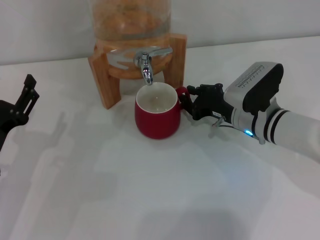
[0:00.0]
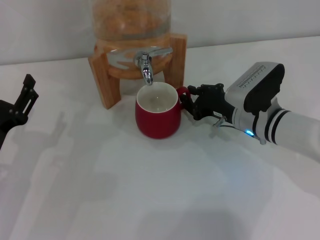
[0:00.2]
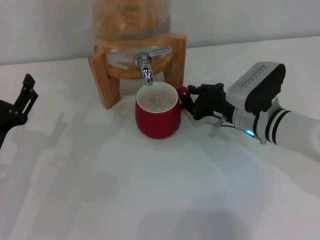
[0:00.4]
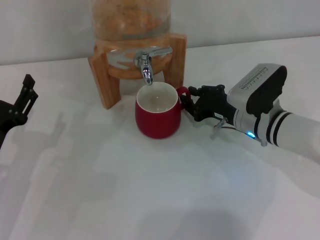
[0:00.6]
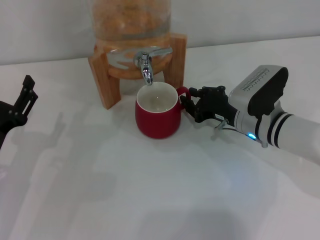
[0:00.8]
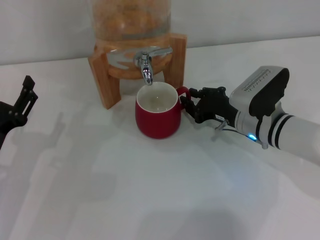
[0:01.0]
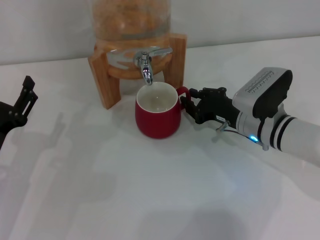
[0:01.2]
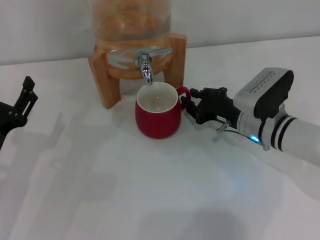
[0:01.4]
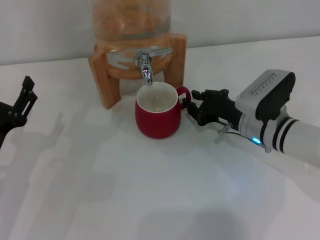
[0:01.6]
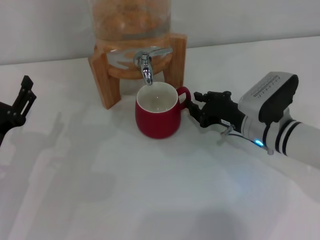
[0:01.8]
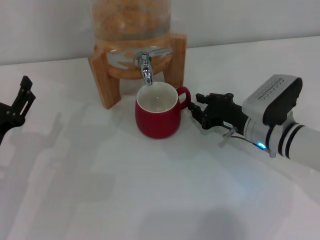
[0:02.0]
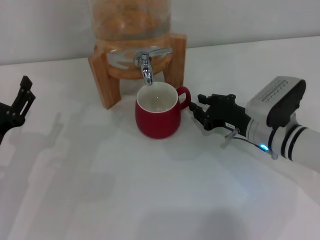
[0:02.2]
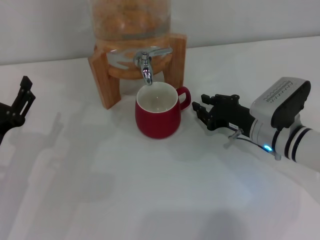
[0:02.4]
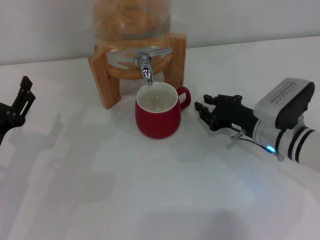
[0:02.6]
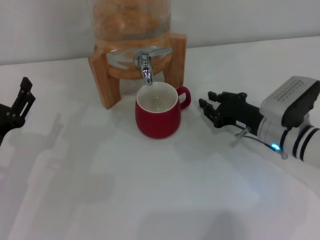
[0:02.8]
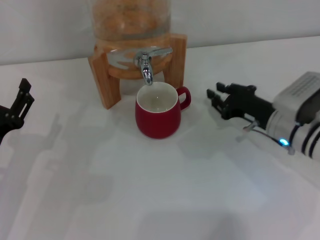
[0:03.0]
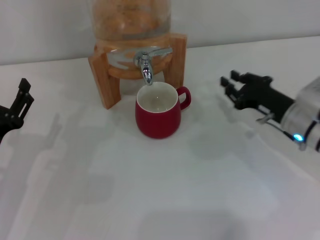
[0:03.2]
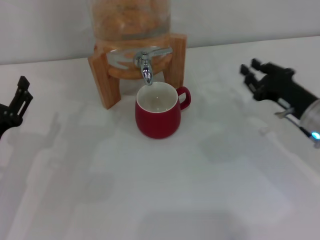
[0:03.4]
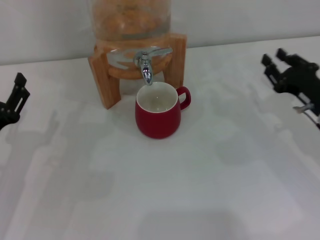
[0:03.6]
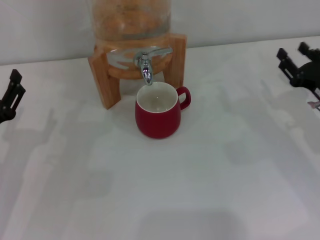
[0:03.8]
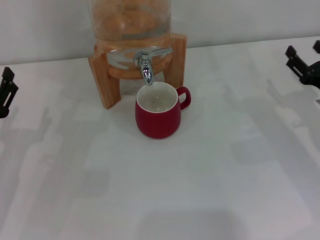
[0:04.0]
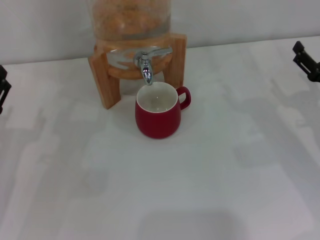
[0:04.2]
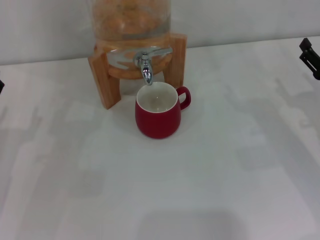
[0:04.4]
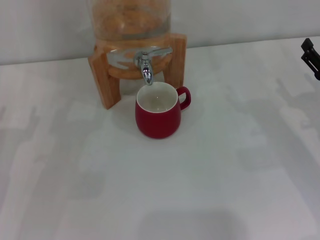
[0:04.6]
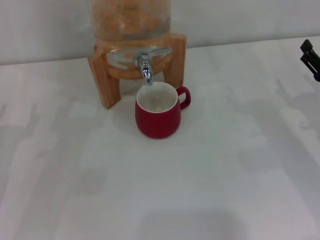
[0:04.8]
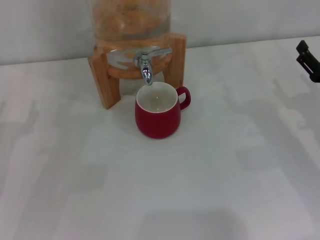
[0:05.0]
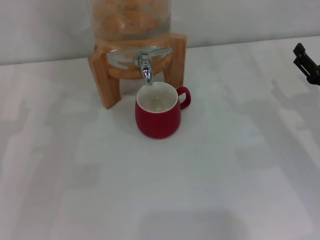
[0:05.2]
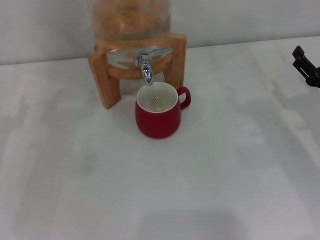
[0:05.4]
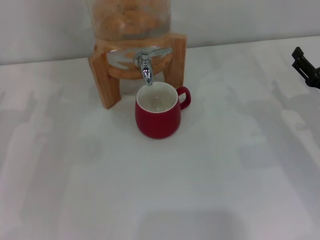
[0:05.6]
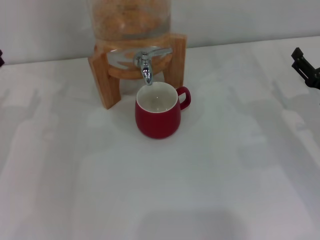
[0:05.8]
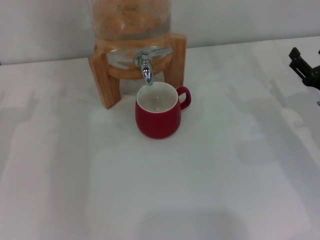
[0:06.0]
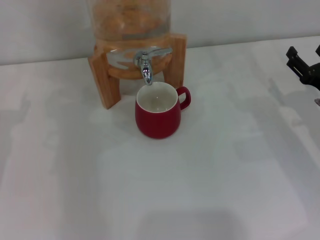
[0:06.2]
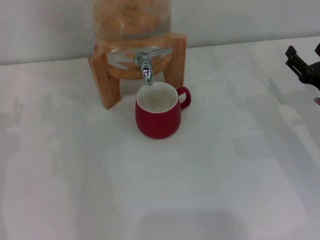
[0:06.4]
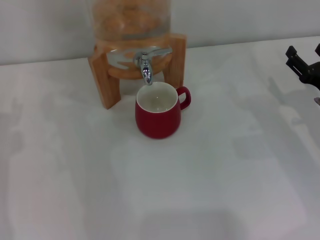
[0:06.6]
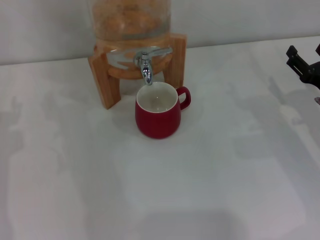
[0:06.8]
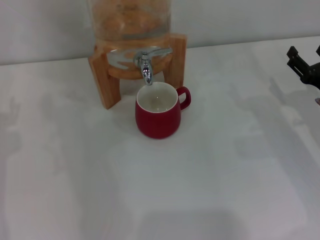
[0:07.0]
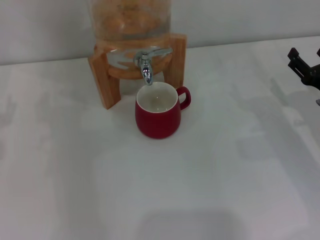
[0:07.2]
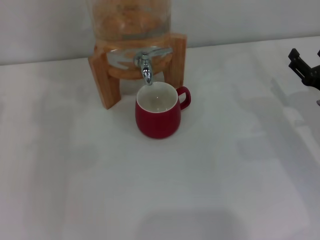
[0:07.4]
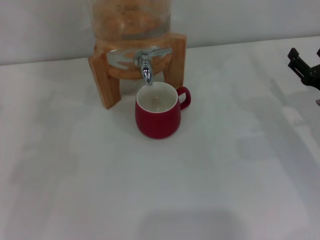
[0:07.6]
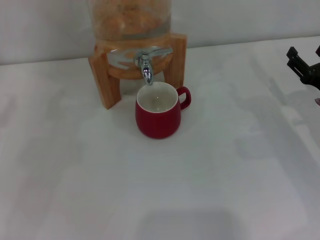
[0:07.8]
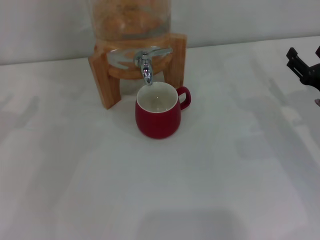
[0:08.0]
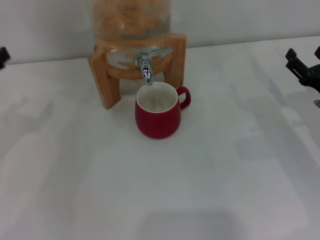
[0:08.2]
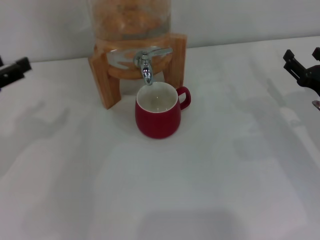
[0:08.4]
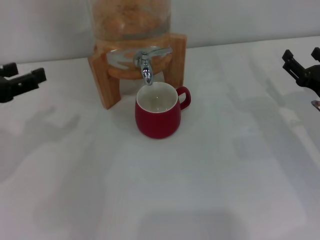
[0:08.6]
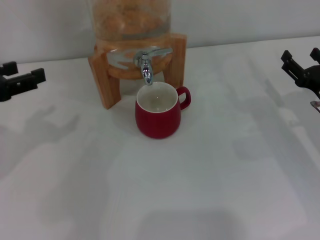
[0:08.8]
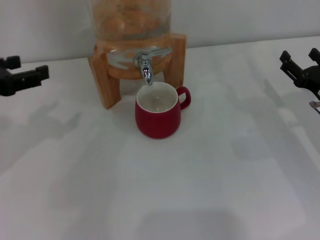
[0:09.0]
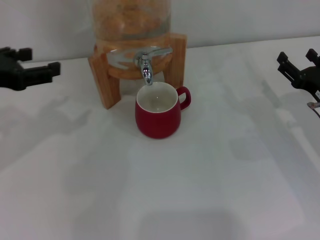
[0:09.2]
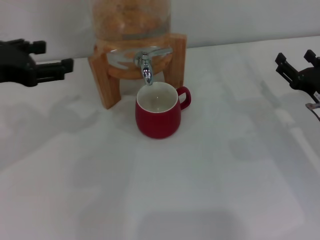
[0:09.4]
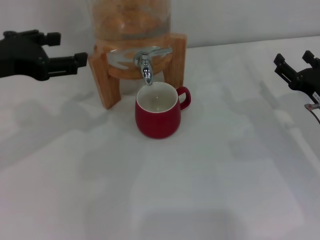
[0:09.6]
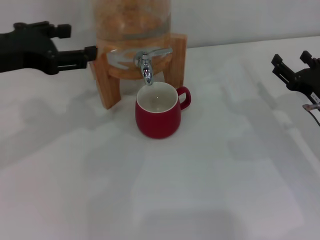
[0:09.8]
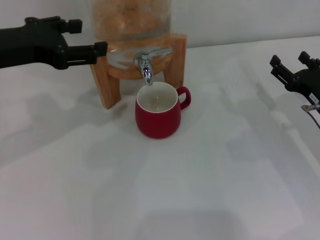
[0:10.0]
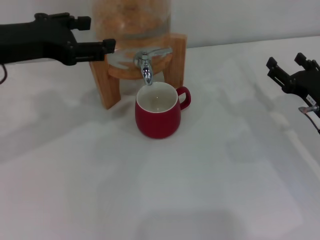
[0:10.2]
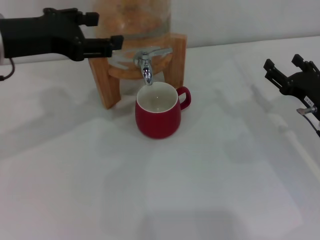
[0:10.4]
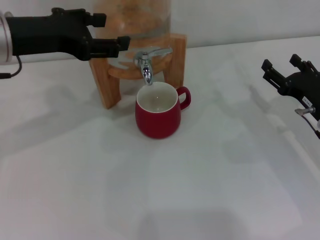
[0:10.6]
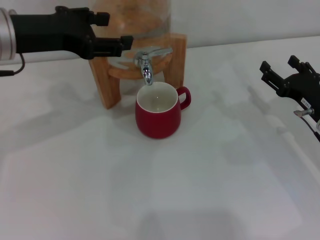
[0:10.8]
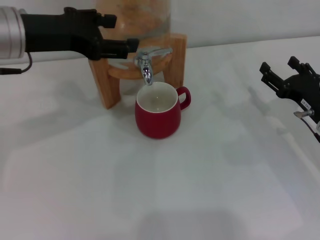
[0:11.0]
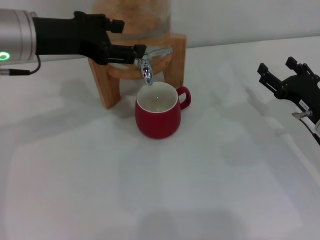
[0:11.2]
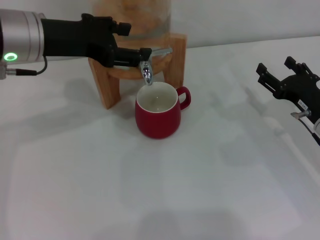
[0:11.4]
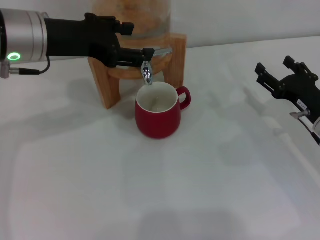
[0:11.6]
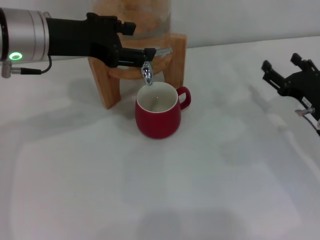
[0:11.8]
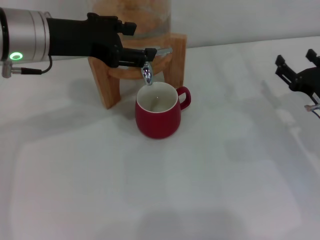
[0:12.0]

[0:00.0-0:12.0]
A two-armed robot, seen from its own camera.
Task of the whole recording: the right gripper pick up the red cup and place it horizontally under the faucet, the left gripper turn on the faucet to fill the cup, and then turn off the faucet.
Step, 0:00.0 to 0:02.8: Move the cup beneath the water dispenser nozzle with the right gripper.
0:00.0 to 0:03.0: There are only small adjustments of the grippers.
0:03.0 to 0:04.4: The right gripper moves to the right, about 10 cm, and opens its fingers.
0:07.6 to 0:09.0: The left gripper heads upward and to the right, covering roughly 10 cm.
0:09.0 to 0:10.4: The left gripper shifts about 10 cm to the right.
0:10.4 to 0:12.0: There are only small adjustments of the grippers.

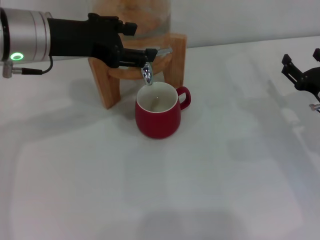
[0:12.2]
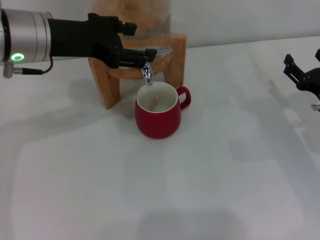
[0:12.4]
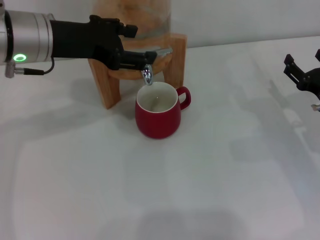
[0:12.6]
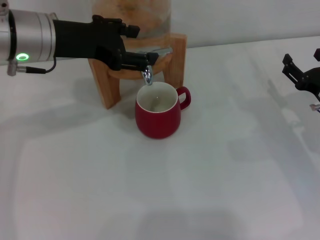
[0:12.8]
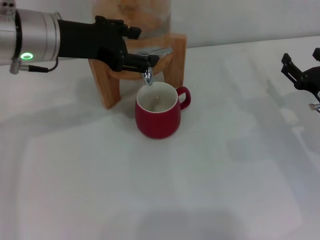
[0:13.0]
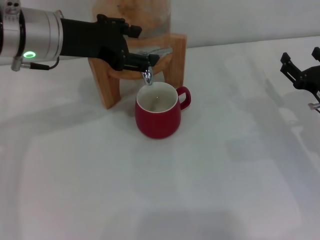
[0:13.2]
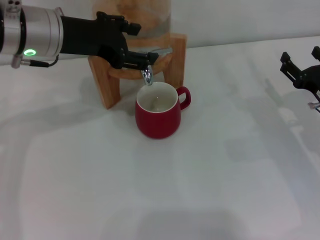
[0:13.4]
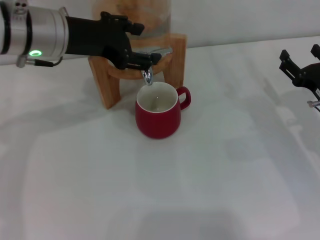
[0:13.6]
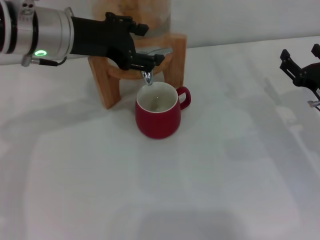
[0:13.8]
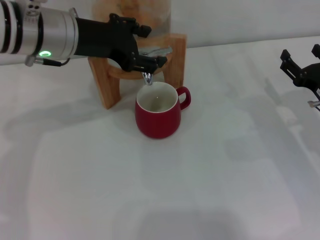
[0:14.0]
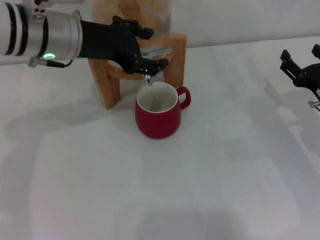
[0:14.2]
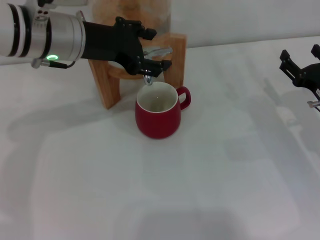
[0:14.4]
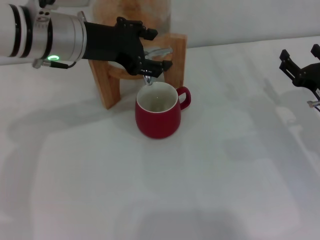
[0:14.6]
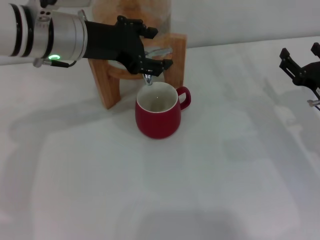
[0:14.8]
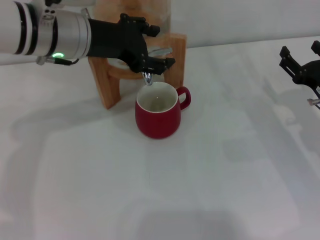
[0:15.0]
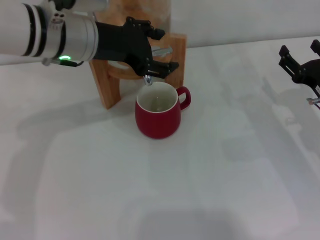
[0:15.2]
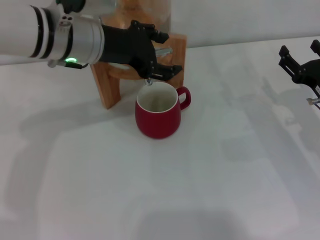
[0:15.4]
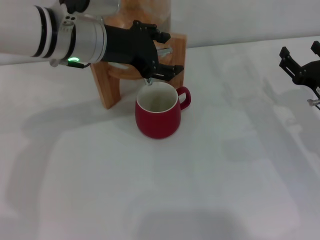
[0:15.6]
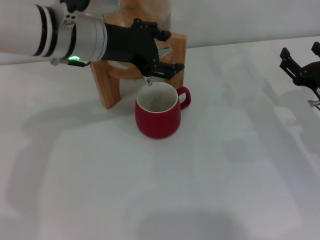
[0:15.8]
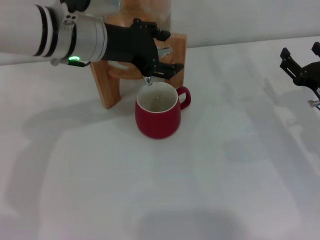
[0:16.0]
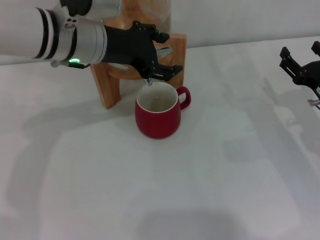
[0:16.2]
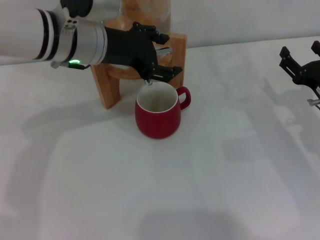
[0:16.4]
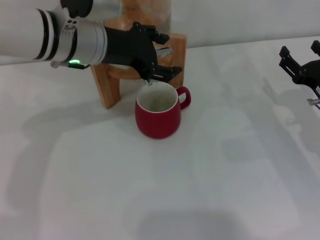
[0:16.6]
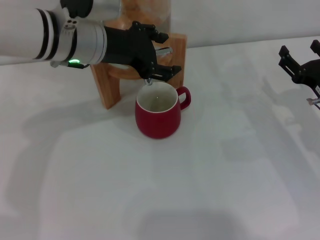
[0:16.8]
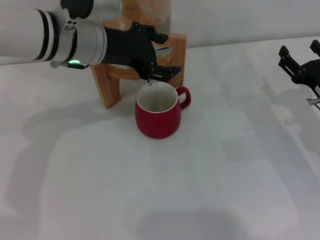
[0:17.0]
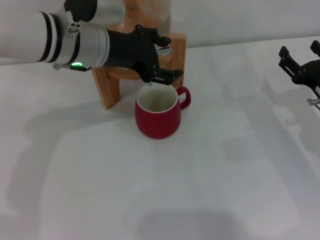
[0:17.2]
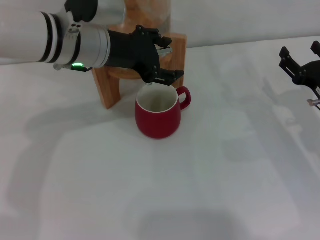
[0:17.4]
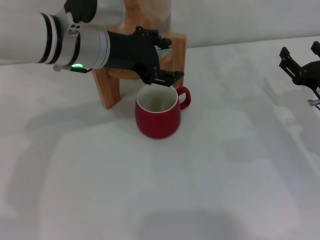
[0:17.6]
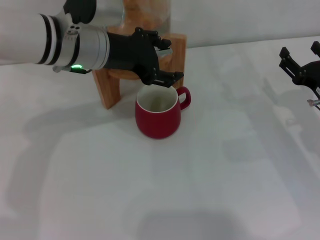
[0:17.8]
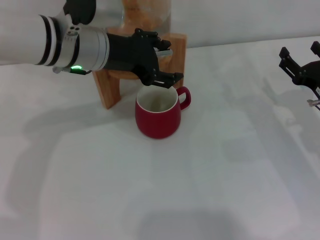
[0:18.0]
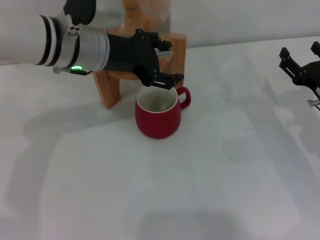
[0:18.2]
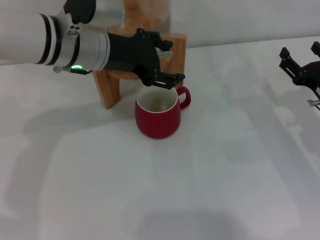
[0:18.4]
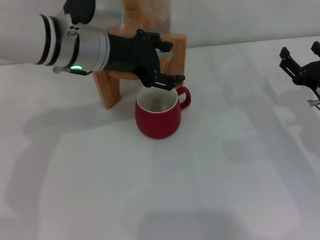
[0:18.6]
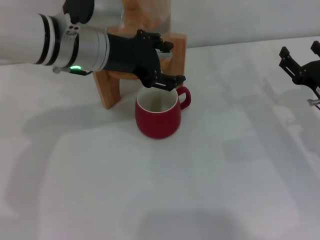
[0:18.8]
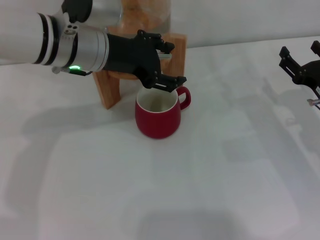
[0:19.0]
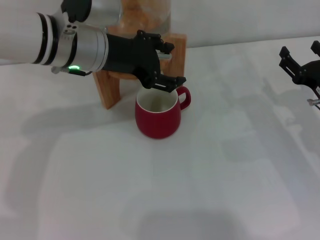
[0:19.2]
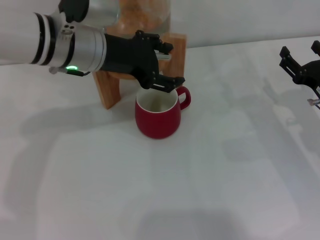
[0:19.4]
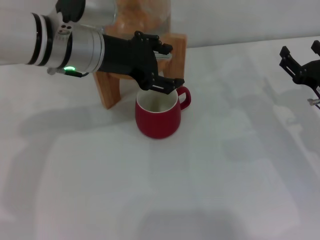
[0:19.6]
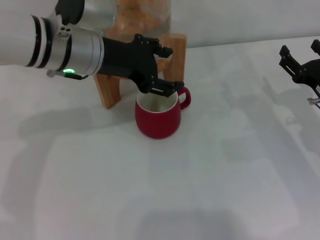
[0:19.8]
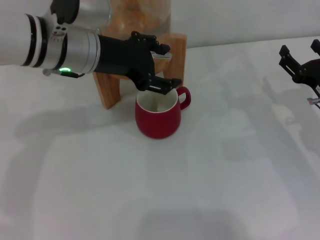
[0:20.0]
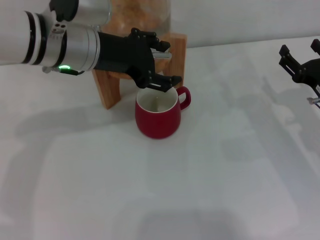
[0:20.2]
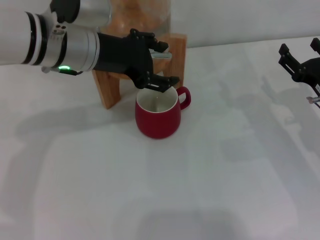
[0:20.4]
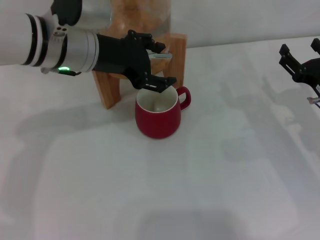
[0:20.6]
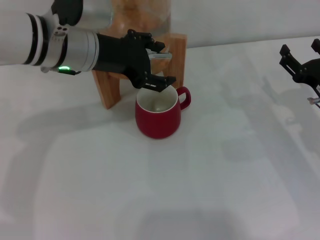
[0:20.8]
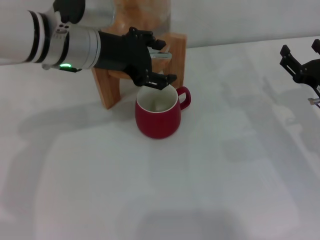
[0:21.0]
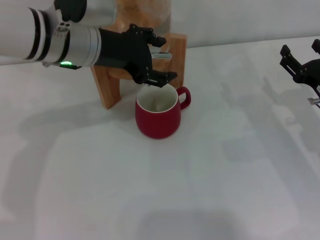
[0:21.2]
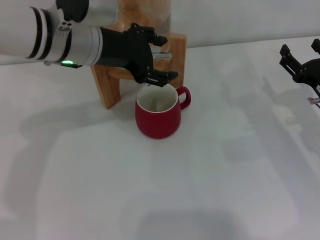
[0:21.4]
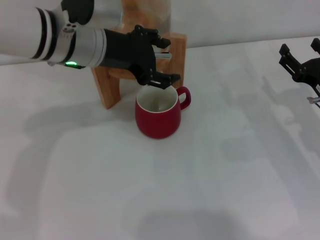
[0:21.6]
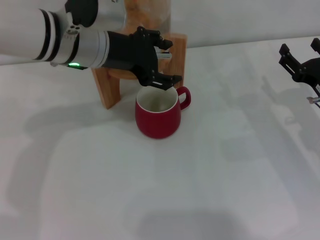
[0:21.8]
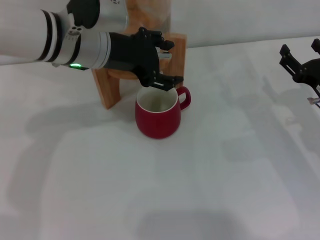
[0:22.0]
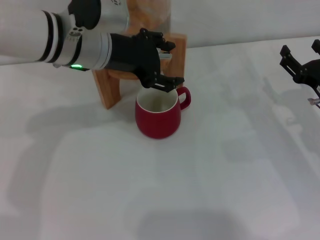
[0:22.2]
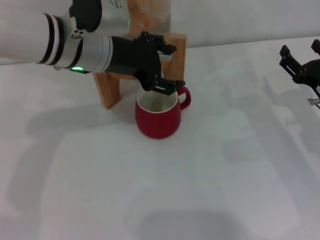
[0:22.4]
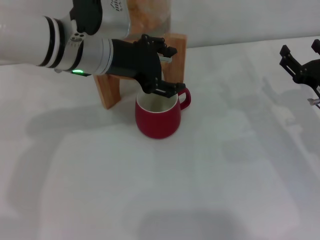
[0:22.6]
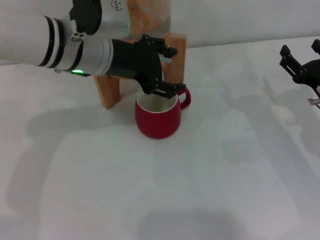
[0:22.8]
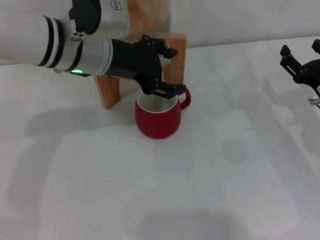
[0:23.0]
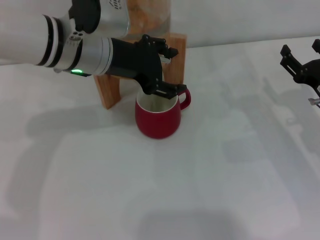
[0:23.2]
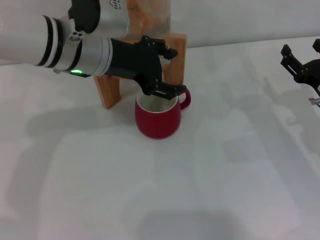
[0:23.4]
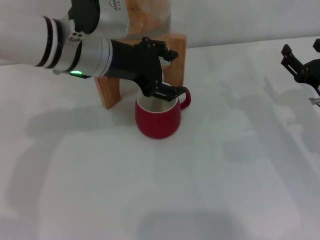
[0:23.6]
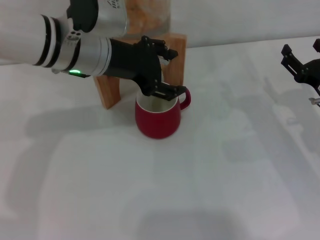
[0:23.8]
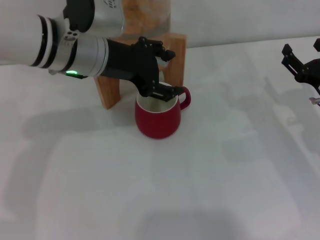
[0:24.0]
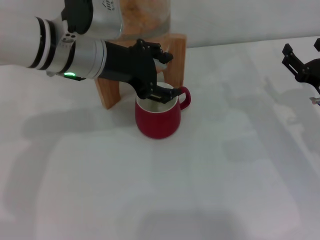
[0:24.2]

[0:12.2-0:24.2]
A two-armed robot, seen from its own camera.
Task of the whole recording: the right gripper pick up the red cup and place it horizontally under the faucet, the left gripper turn on the faucet to fill the cup, and then turn off the faucet.
0:12.2 to 0:15.2: The grippers stay close to where they were, moving slightly.
0:15.2 to 0:16.6: The grippers make only small movements.
0:16.6 to 0:18.2: Both grippers stay put.
0:18.2 to 0:19.8: The two grippers keep their place.
0:19.8 to 0:22.6: The grippers move only a little.
0:22.6 to 0:24.2: Both grippers stay about where they are.
